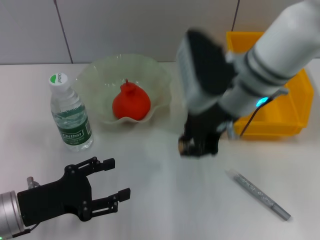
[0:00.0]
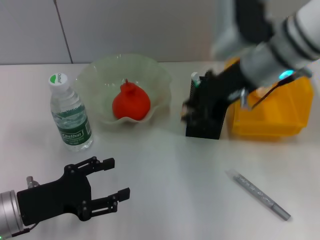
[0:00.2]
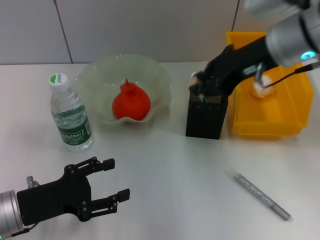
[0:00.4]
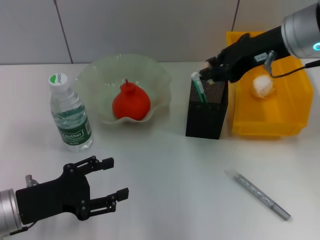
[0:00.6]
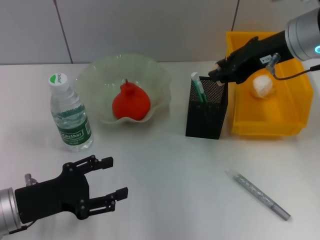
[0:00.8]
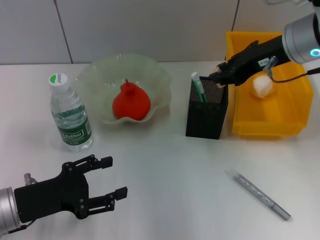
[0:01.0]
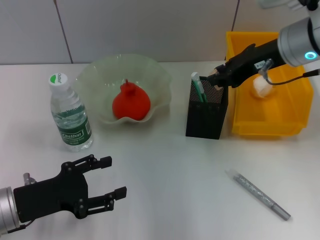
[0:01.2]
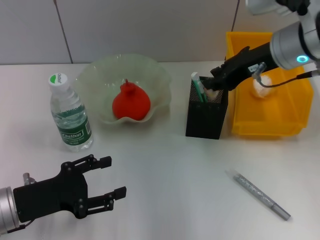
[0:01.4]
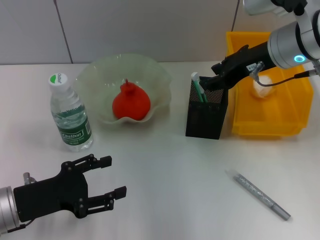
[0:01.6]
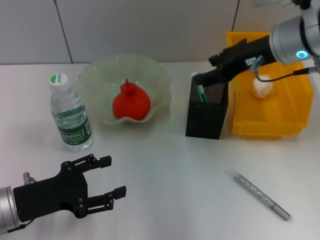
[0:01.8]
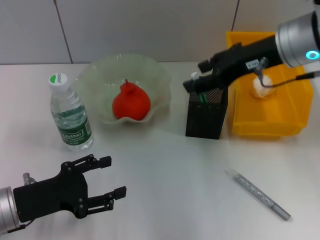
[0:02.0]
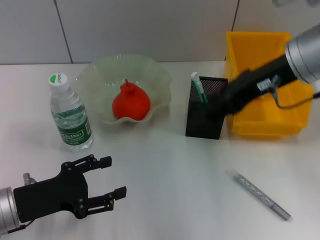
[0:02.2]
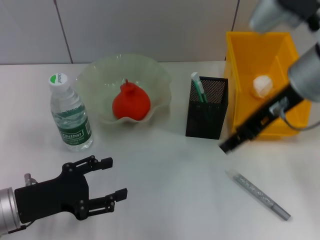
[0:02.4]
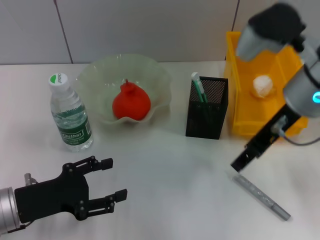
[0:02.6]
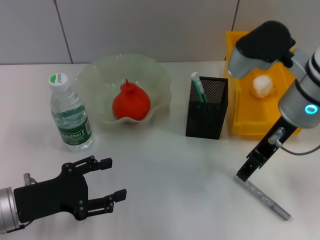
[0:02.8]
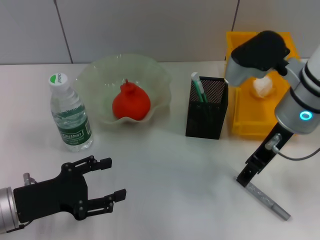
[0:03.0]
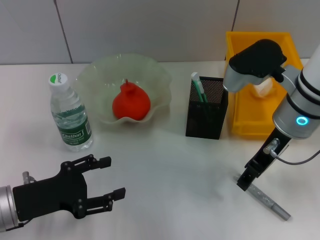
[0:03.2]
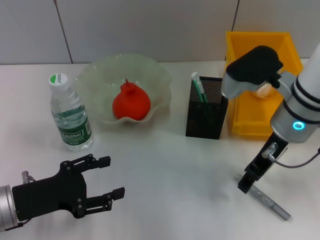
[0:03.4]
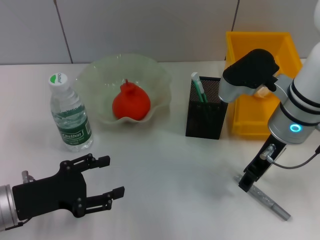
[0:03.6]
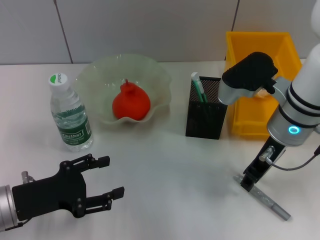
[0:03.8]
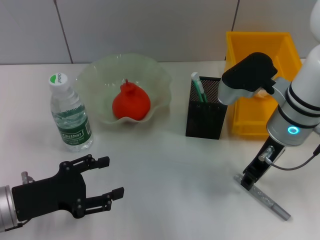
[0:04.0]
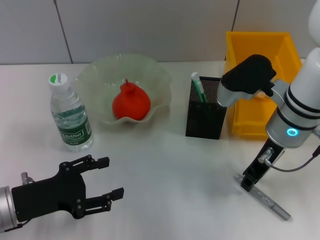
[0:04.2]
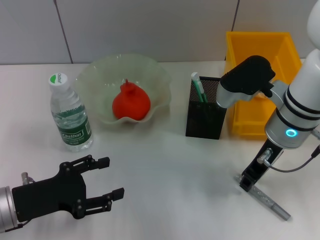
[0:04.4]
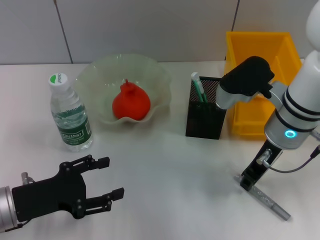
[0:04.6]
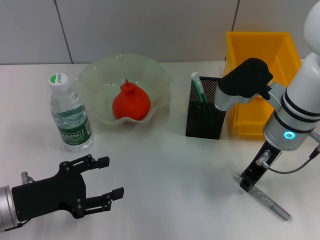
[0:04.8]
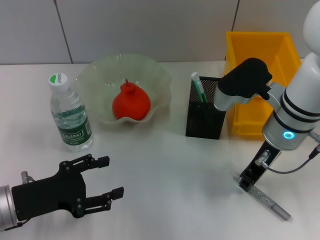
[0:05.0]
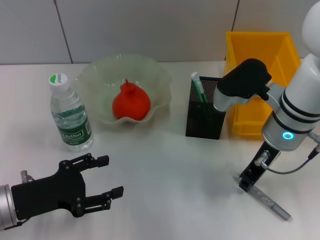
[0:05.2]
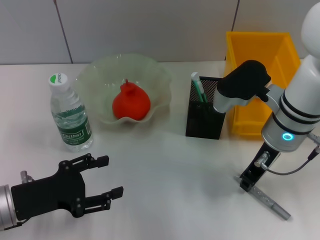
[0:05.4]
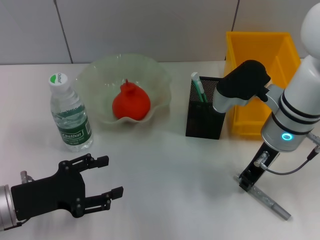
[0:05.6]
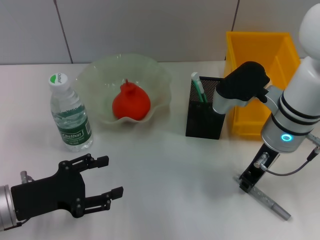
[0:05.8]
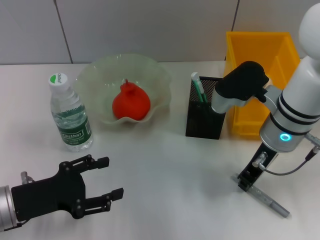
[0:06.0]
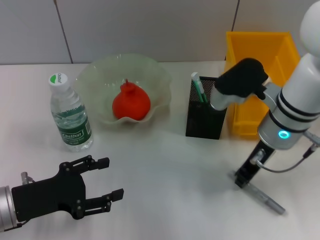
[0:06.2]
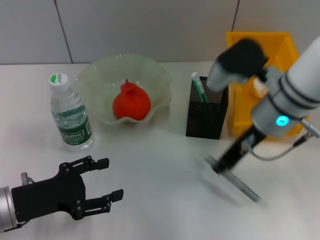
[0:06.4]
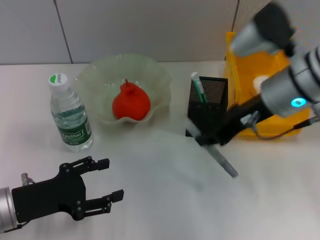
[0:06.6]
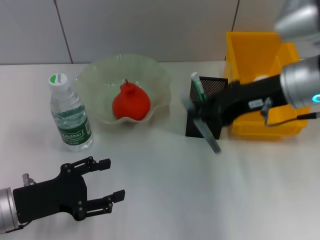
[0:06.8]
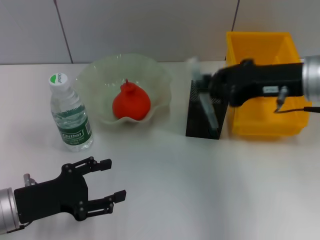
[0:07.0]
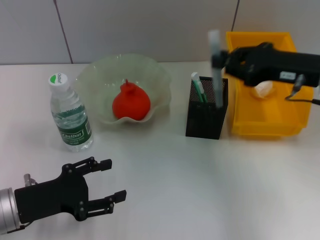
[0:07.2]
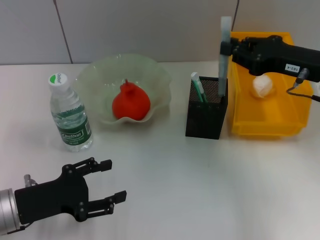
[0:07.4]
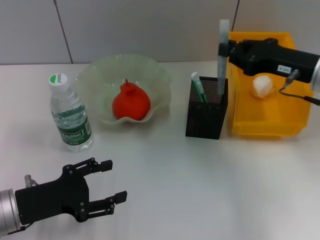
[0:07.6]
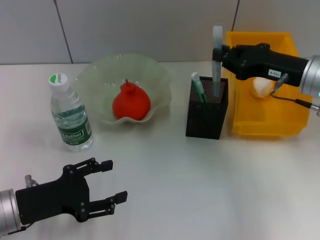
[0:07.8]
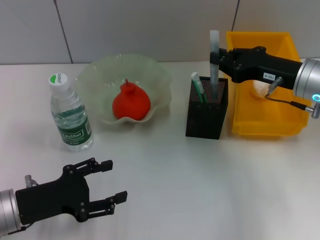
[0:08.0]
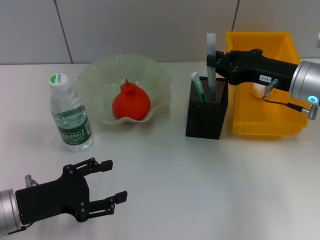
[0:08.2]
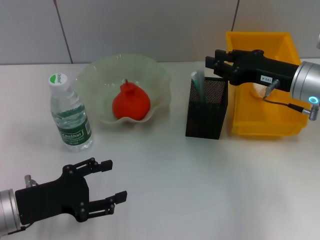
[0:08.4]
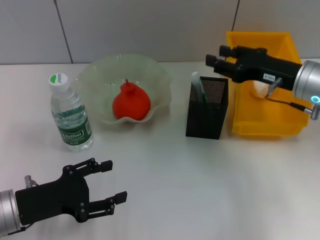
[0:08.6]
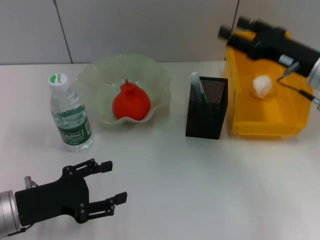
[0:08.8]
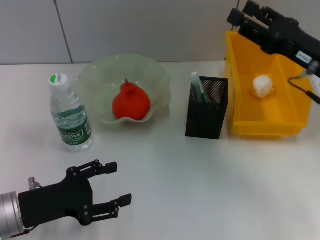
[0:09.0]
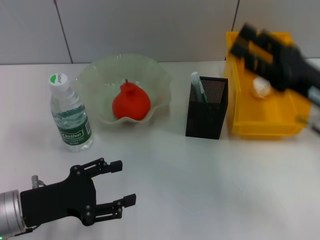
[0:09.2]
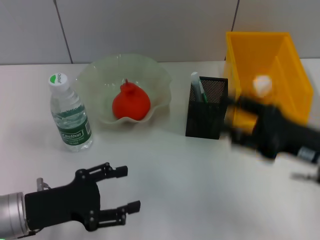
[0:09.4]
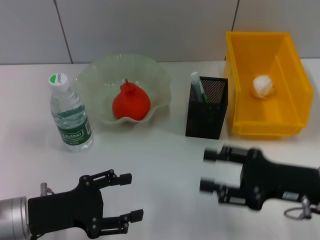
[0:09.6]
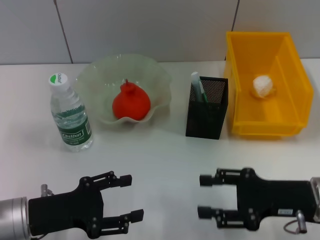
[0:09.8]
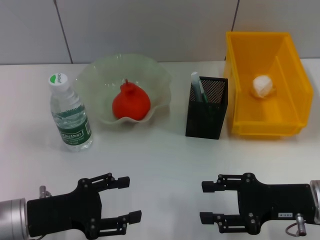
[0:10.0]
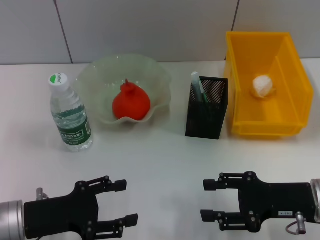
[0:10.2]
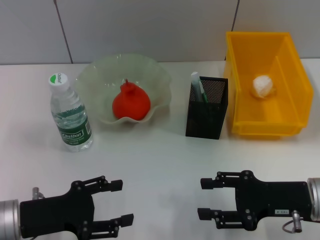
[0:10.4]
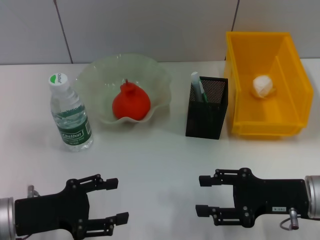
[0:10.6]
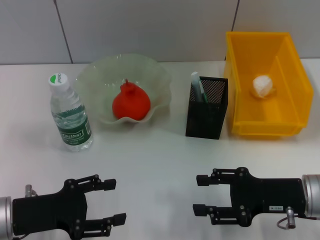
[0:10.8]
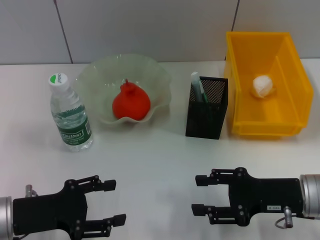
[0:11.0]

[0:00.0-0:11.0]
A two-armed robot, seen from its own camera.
Step, 0:00.0 to 0:01.4: Put the eraser into the pen holder with the right hand.
Step, 0:01.6 to 0:05.8: Grab the gray glue with the right hand.
Step, 0:06.0 to 0:08.4: Place the gray glue into the pen holder with the right hand.
0:00.0 to 0:01.6: The right gripper moves to the right, roughly 10 cm.
0:01.6 to 0:03.2: The right gripper heads backward, covering roughly 5 cm, and opens.
0:03.2 to 0:04.8: The right gripper closes its fingers.
0:04.8 to 0:06.2: Neither gripper changes place.
0:06.2 to 0:07.8: The right gripper heads to the right, covering some 10 cm.
0:07.8 to 0:09.4: The right gripper moves backward, roughly 10 cm, and opens up.
0:09.4 to 0:11.0: The right gripper moves approximately 5 cm.

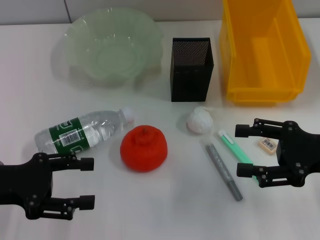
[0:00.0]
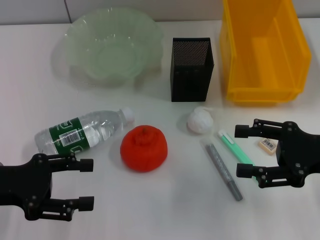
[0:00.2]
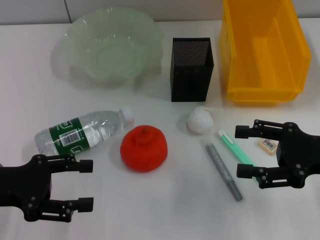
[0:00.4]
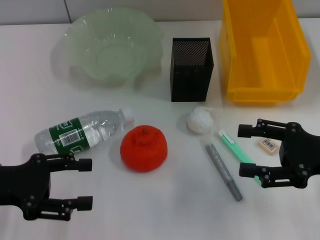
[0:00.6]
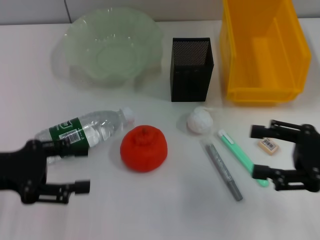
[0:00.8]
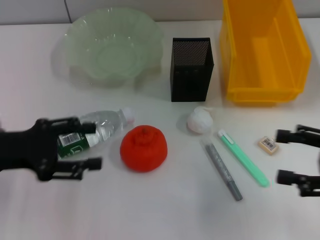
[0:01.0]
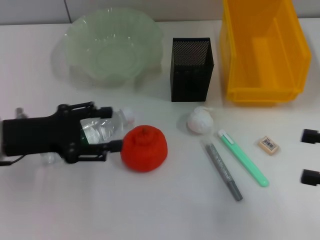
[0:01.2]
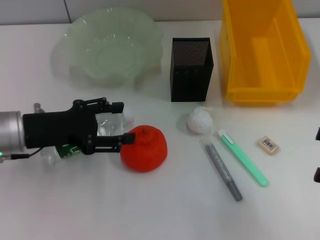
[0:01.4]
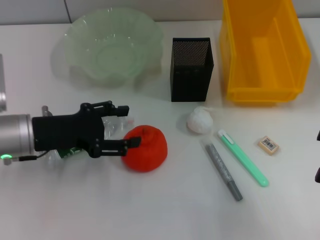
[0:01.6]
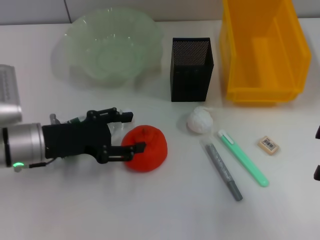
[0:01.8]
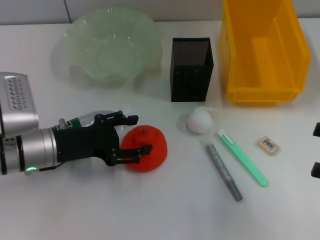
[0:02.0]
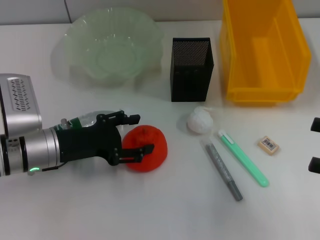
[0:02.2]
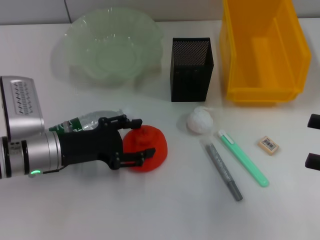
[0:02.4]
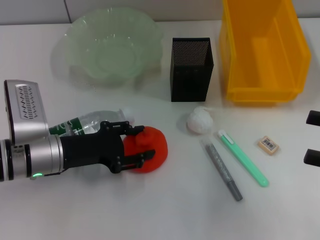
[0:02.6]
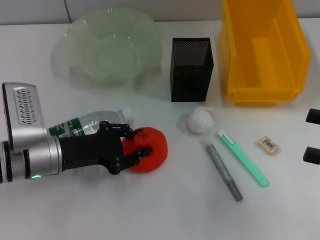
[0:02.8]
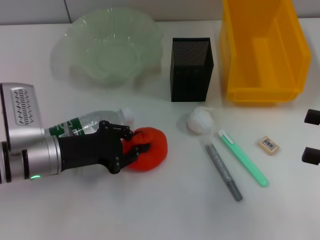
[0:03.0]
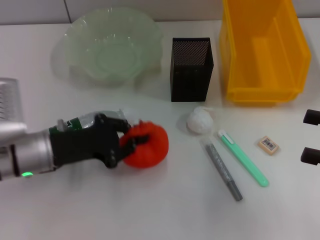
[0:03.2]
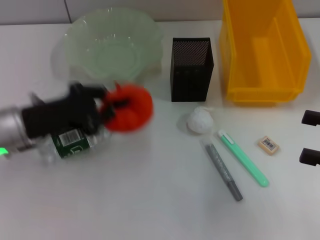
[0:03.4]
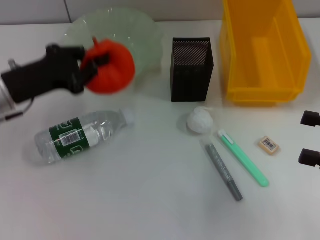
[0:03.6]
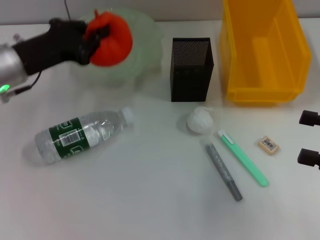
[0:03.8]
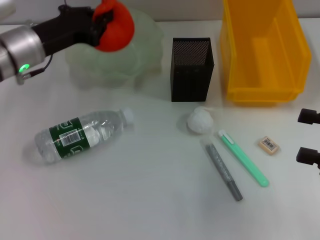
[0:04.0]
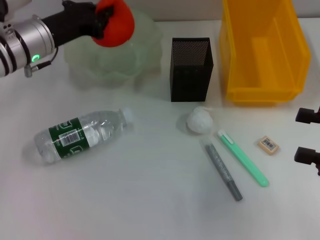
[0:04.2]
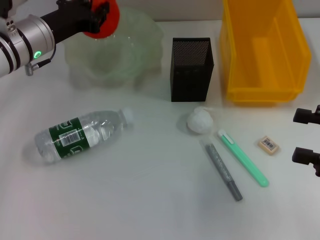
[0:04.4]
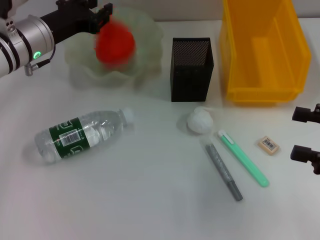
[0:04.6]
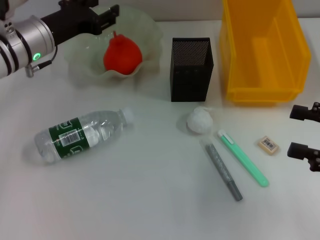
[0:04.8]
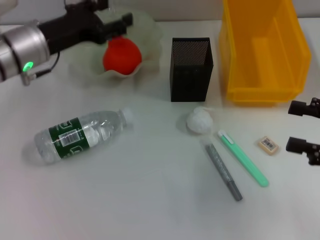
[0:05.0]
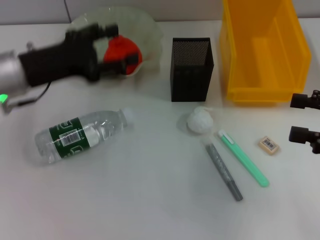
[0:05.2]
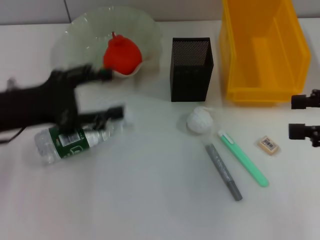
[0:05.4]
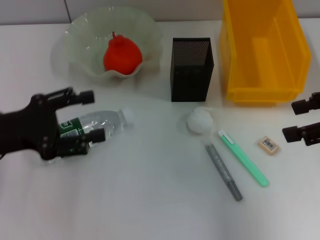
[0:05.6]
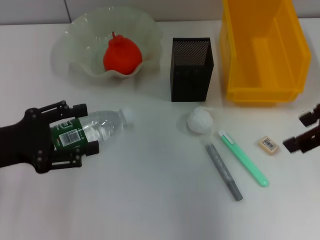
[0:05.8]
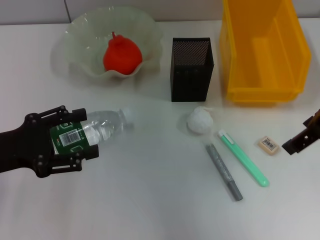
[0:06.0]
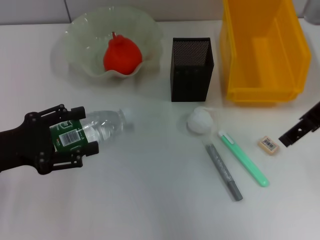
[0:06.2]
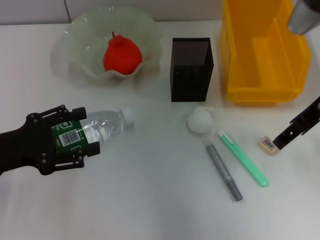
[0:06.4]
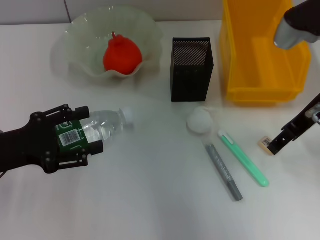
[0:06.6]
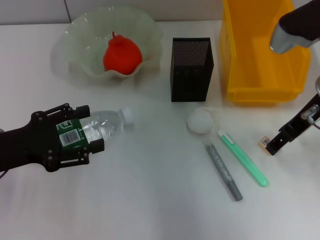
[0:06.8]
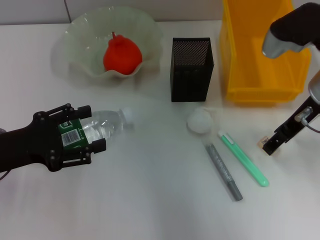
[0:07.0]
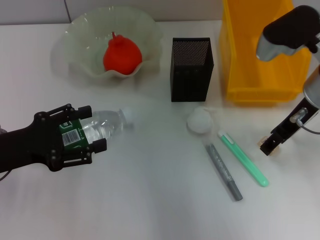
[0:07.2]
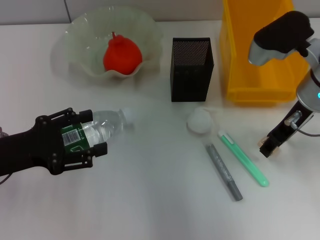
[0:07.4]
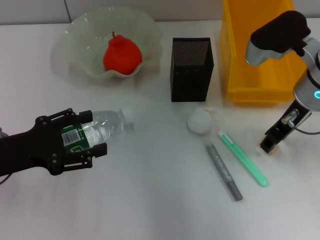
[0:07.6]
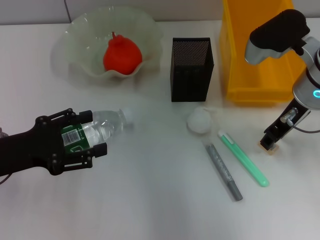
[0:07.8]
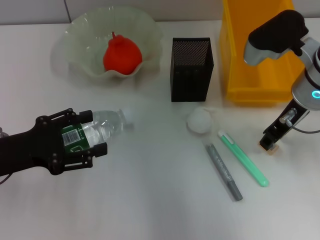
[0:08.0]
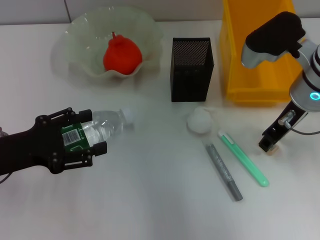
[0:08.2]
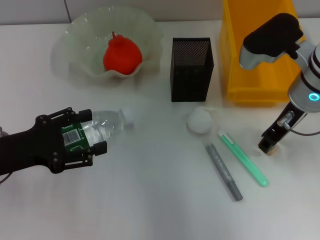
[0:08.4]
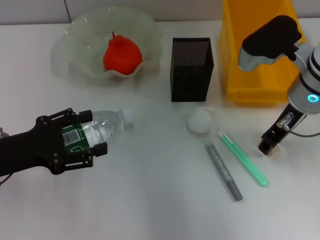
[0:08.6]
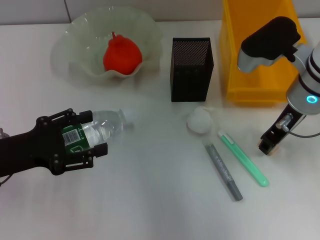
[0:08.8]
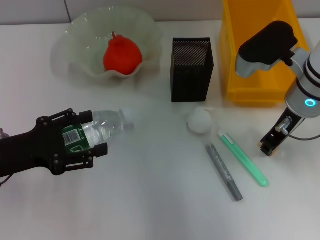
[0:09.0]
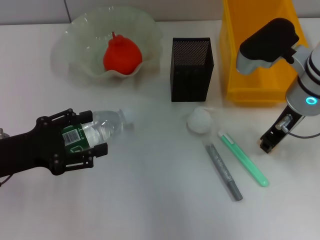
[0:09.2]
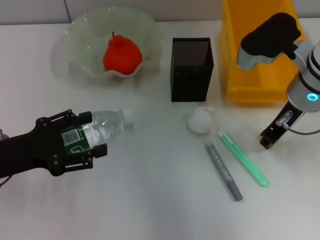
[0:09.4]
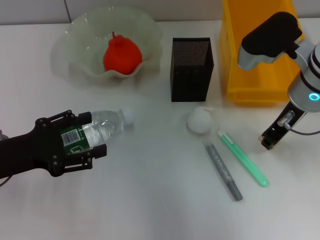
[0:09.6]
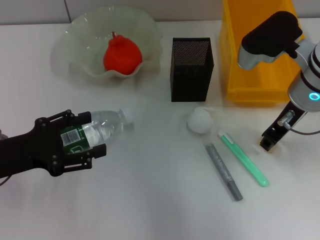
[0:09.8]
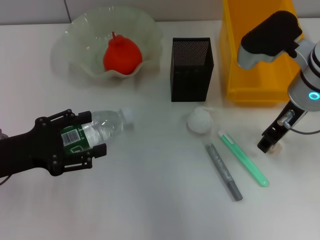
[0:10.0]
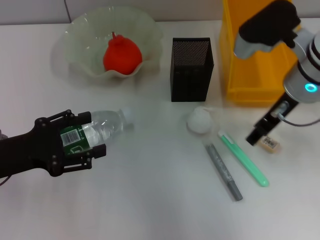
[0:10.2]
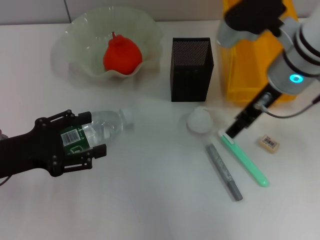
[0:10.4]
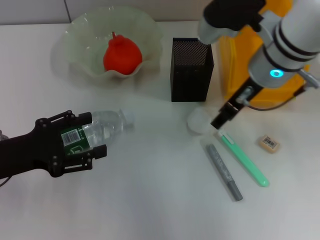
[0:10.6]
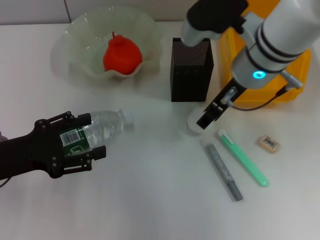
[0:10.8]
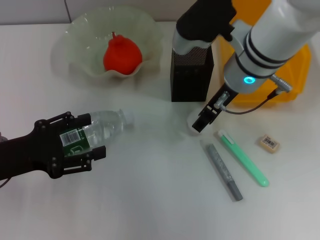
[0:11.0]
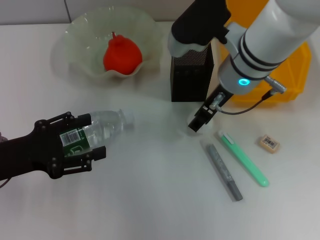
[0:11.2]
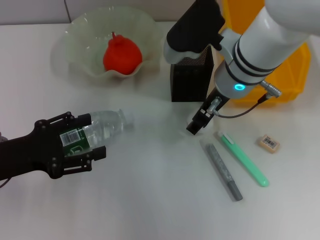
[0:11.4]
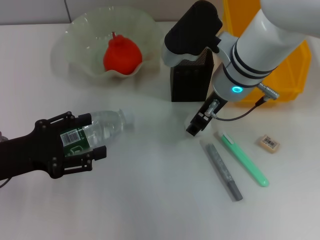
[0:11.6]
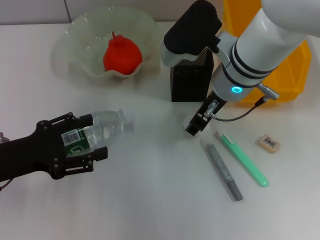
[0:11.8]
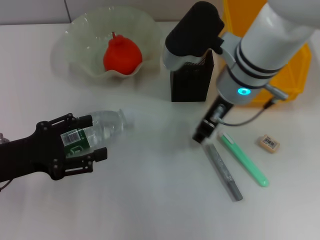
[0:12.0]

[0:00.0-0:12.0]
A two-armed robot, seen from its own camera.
Step, 0:00.0 to 0:03.0: Grab the orange with the left hand.
Step, 0:03.2 to 0:04.8: Place the orange into the fruit bowl with the left hand.
Step, 0:05.0 to 0:11.6: Grab the paper ball with the right hand.
0:00.0 to 0:01.6: The right gripper goes approximately 10 cm to the right and backward; the left gripper moves forward and to the right, some 10 cm.
0:01.6 to 0:03.0: The left gripper moves roughly 5 cm, and closes.
0:03.0 to 0:04.4: The left gripper goes approximately 15 cm forward and upward, and closes its fingers.
0:04.4 to 0:06.0: The right gripper goes about 20 cm upward, to the left and forward, while the left gripper goes about 20 cm backward and to the left, and opens its fingers.
0:06.0 to 0:07.6: The right gripper goes roughly 10 cm downward.
0:07.6 to 0:09.0: The right gripper closes its fingers.
0:09.0 to 0:10.4: The right gripper shifts by approximately 5 cm, and opens its fingers.
0:10.4 to 0:12.0: The right gripper goes roughly 5 cm to the left.
